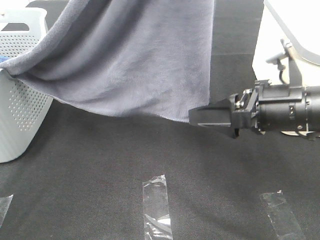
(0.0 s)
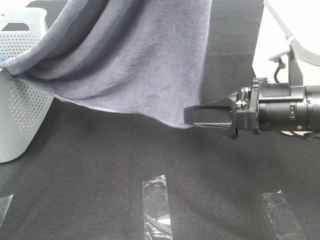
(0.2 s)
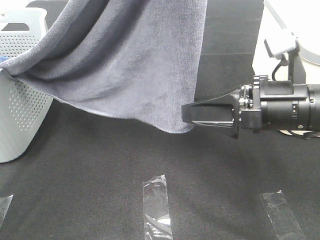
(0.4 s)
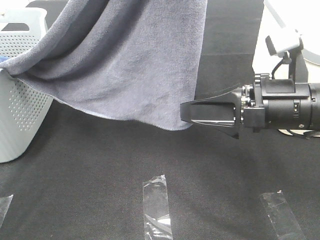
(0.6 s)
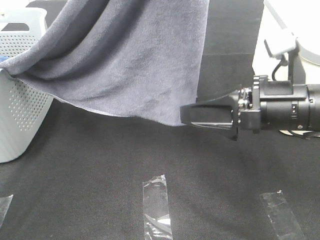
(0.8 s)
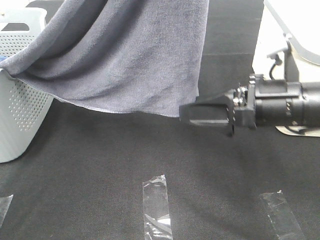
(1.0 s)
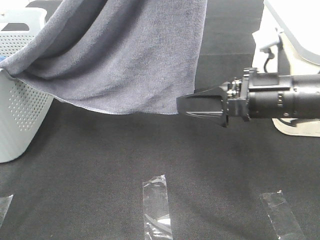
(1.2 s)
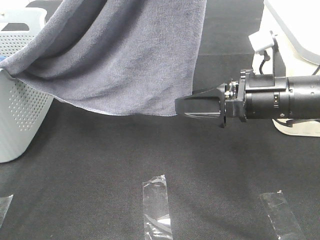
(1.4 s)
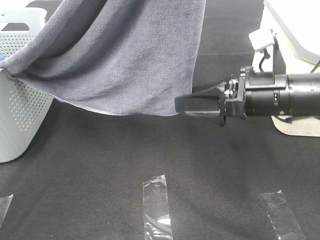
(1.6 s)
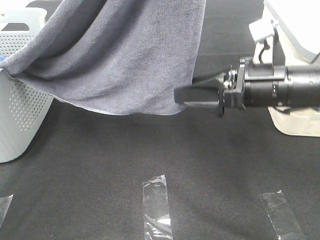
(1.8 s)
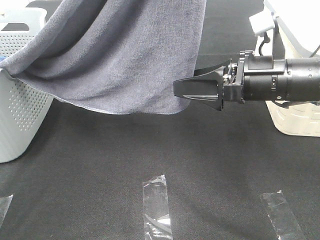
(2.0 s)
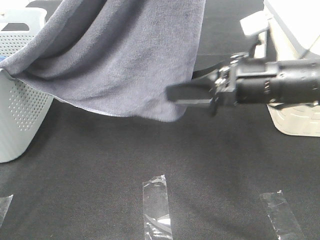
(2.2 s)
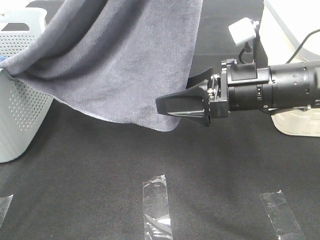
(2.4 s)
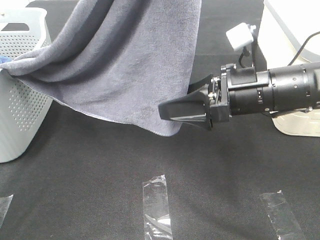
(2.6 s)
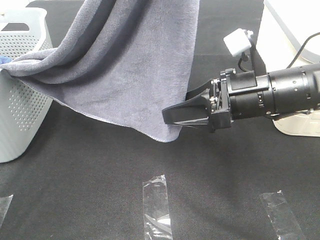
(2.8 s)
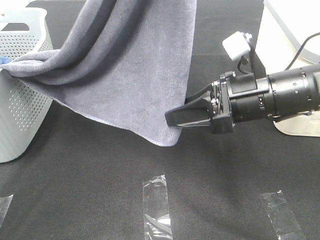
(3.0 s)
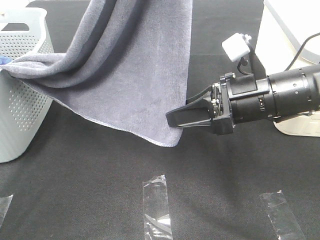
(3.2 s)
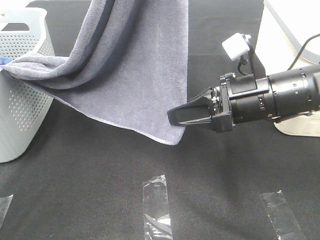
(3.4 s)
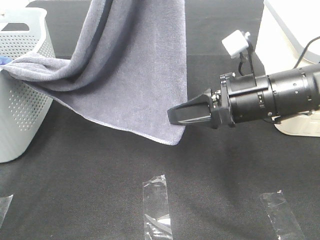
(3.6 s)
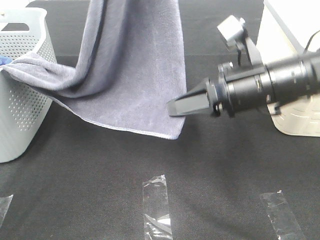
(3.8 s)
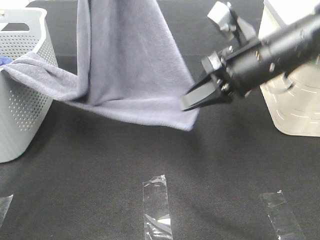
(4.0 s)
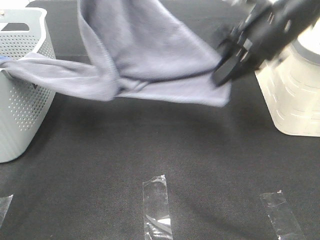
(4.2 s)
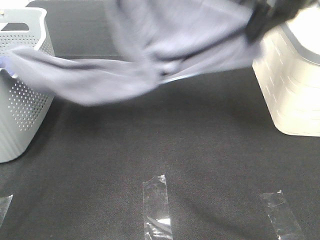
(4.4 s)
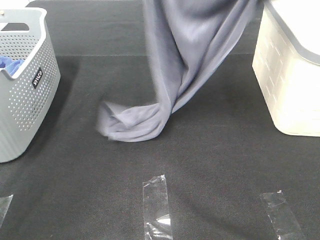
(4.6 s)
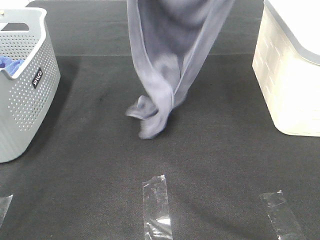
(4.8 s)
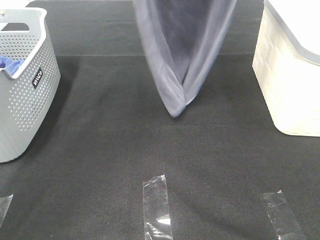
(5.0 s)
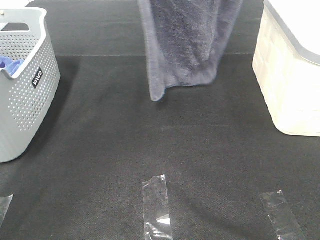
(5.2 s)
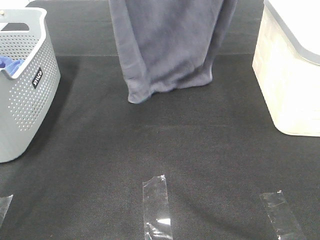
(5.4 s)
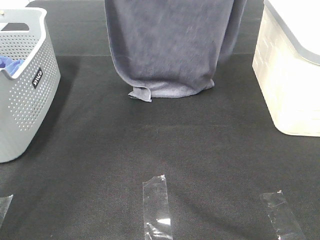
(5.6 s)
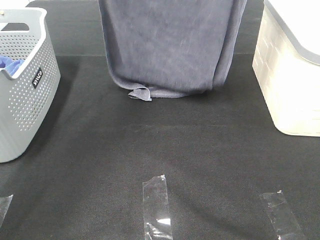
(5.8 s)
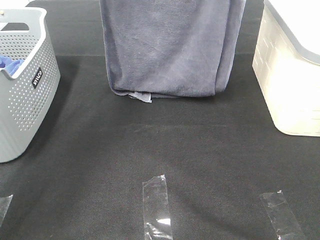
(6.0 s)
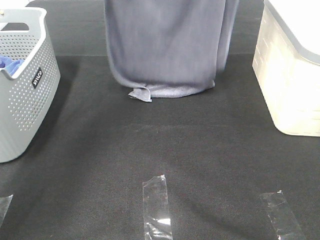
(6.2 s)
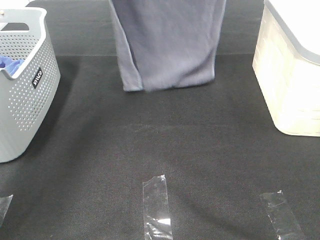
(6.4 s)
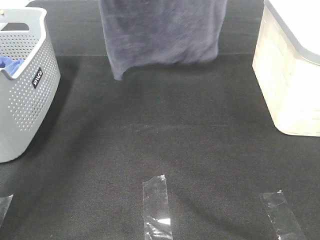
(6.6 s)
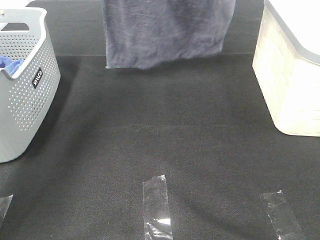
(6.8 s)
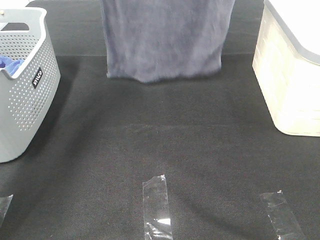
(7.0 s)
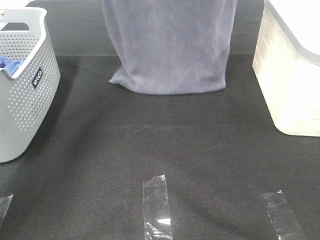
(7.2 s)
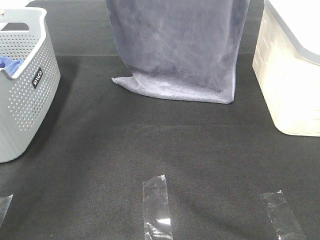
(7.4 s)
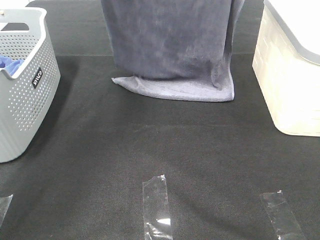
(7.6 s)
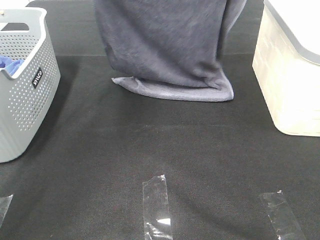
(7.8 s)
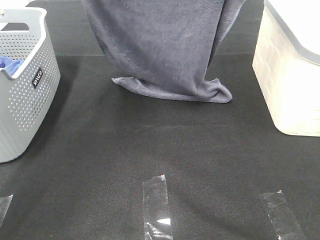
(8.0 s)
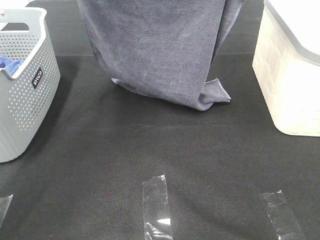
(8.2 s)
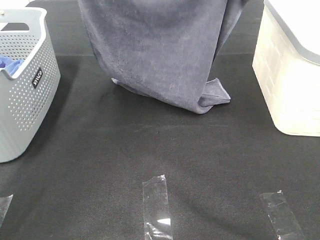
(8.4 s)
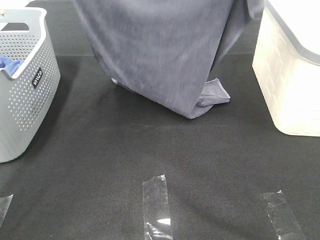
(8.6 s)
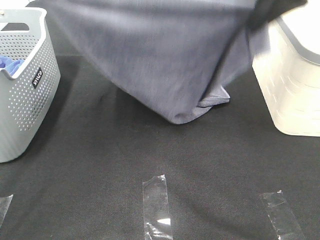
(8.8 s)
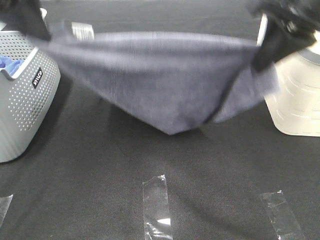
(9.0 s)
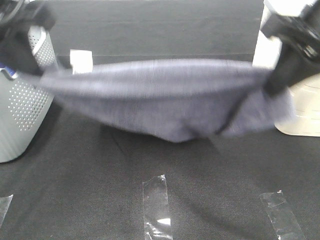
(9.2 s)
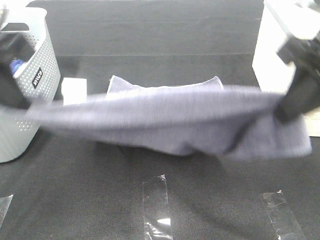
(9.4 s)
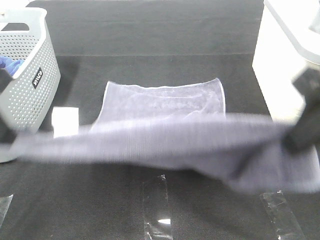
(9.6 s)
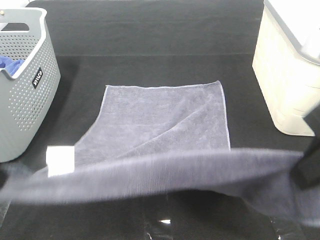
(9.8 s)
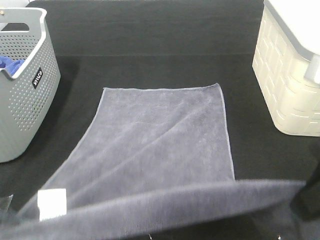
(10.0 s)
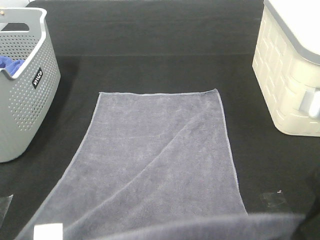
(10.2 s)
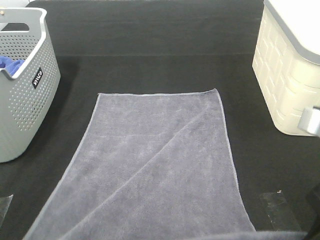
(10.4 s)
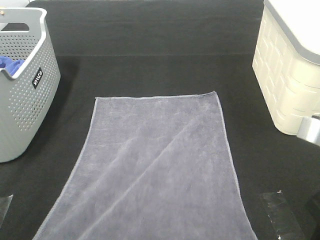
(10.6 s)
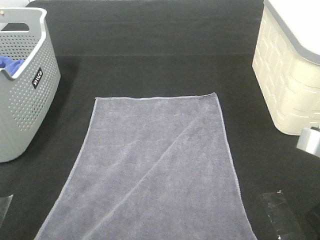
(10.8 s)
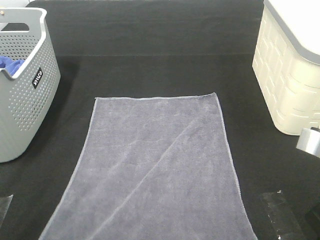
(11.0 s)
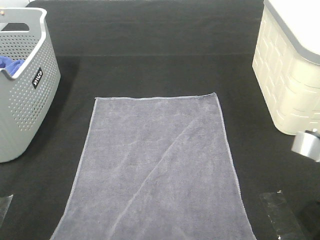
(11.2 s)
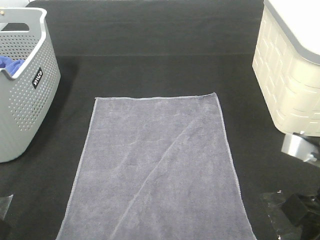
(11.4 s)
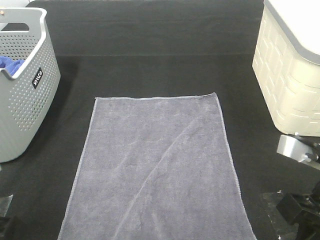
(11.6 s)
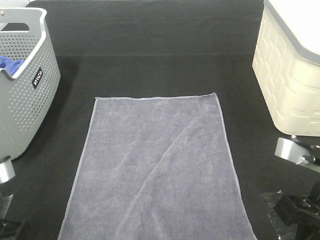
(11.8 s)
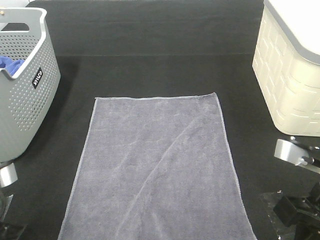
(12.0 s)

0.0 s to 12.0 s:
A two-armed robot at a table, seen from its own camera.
Task of the whole recording: Remove the towel and place it.
Step, 1.6 to 6.6 s: Left hand: spread the grey towel flat on the table.
Step, 1.6 to 6.6 s: Right hand: spread the grey towel flat on the table.
0.0 to 1.6 s: The grippers stay close to where they were, moving slightly.
1.6 to 3.0 s: The right gripper closes.
3.0 to 4.4 s: The left gripper heads forward and downward, covering roughly 10 cm. The right gripper heads upward and forward, covering approximately 20 cm, and closes.
4.4 to 6.0 s: The left gripper goes approximately 5 cm forward, and moves some 10 cm upward and comes back; the right gripper goes roughly 15 cm upward and forward.
6.0 to 7.6 s: The right gripper travels upward and back again, roughly 5 cm each way.
7.6 to 9.0 s: The left gripper goes roughly 15 cm backward. The right gripper travels backward and downward by approximately 15 cm.
9.0 to 10.4 s: Both grippers travel together backward and downward, about 20 cm.
10.4 to 12.0 s: The right gripper shifts by some 5 cm; the left gripper shifts some 5 cm downward.

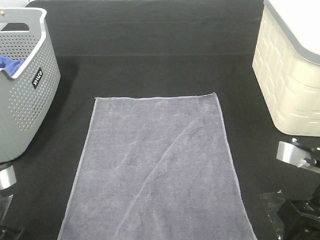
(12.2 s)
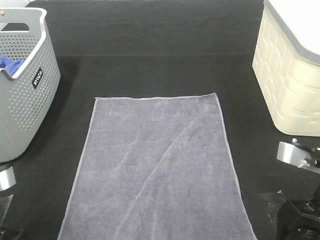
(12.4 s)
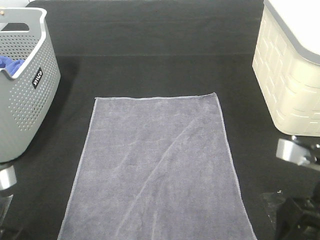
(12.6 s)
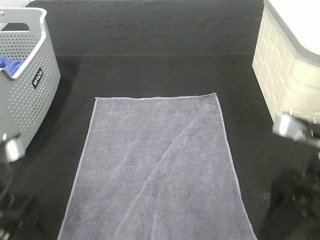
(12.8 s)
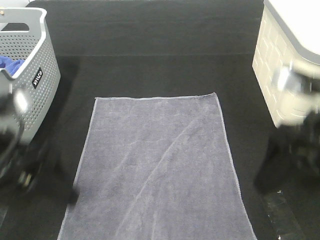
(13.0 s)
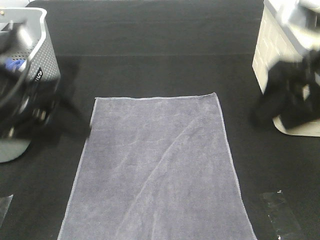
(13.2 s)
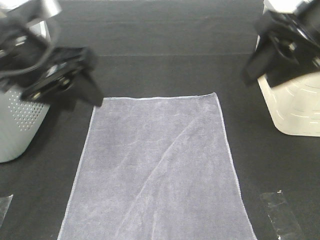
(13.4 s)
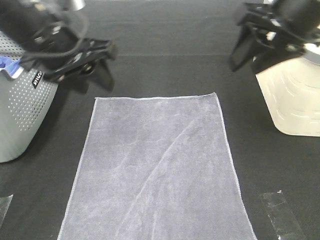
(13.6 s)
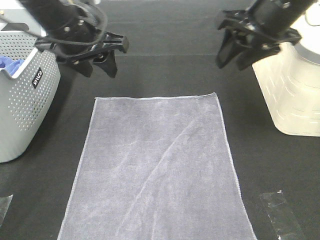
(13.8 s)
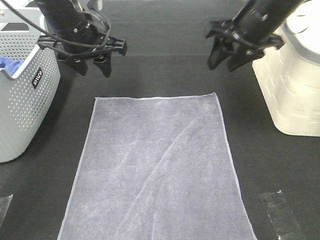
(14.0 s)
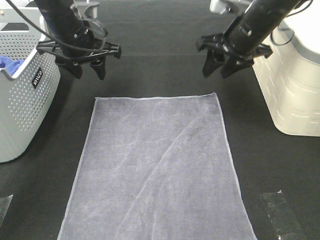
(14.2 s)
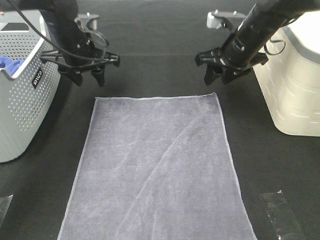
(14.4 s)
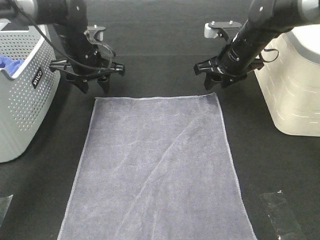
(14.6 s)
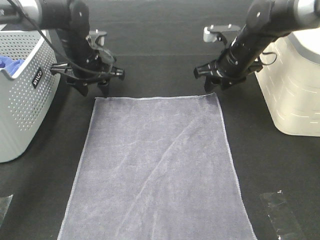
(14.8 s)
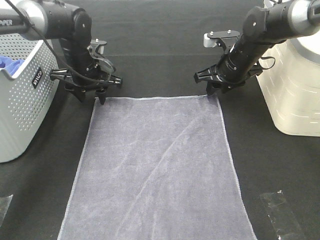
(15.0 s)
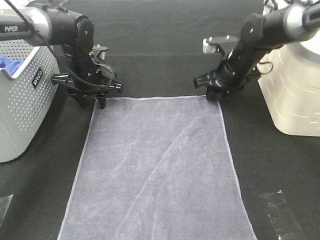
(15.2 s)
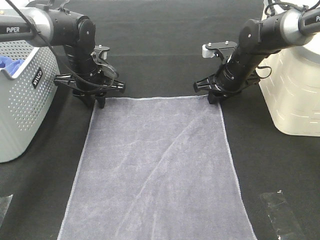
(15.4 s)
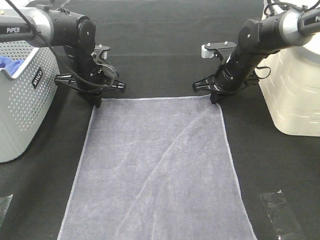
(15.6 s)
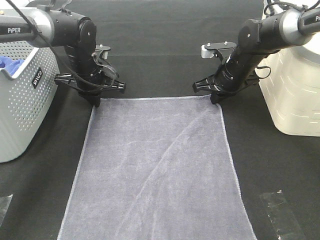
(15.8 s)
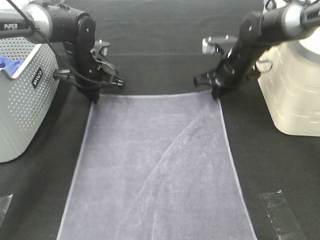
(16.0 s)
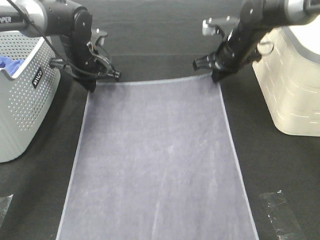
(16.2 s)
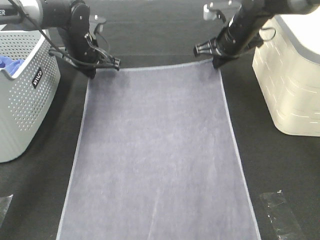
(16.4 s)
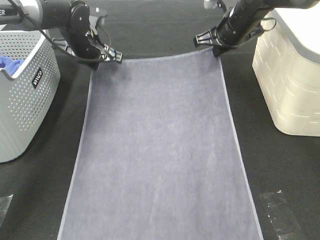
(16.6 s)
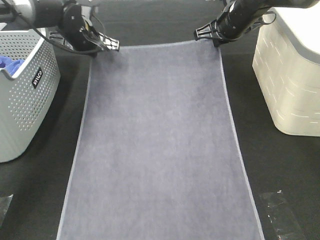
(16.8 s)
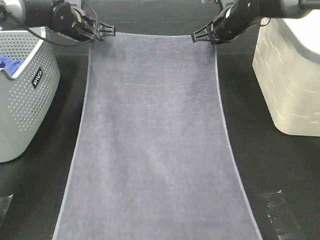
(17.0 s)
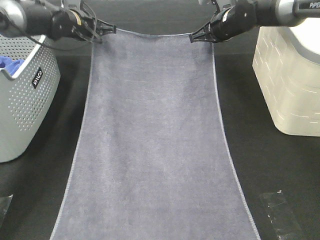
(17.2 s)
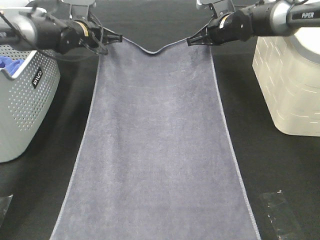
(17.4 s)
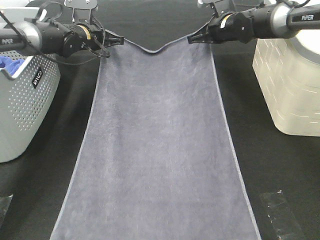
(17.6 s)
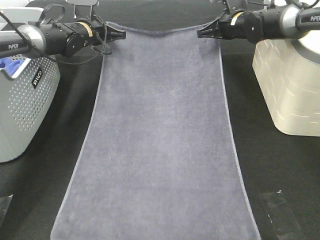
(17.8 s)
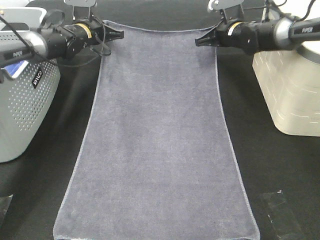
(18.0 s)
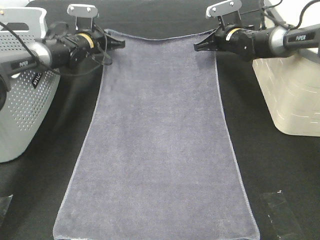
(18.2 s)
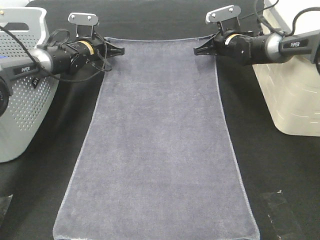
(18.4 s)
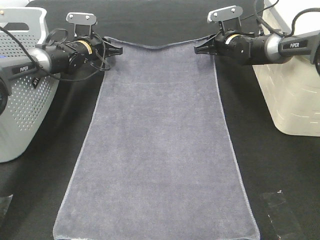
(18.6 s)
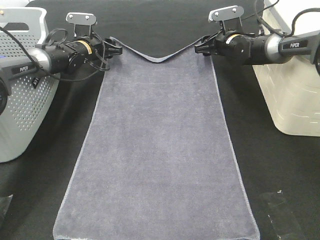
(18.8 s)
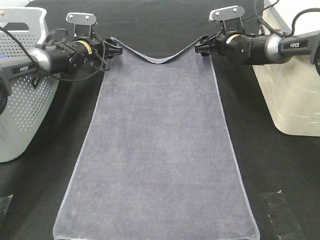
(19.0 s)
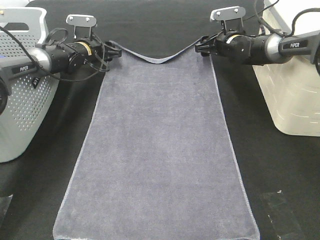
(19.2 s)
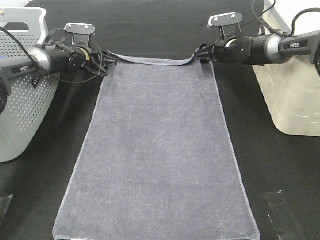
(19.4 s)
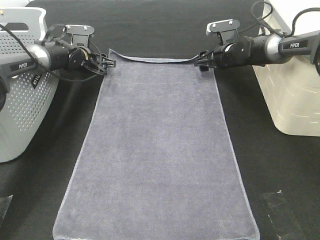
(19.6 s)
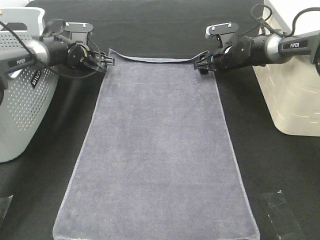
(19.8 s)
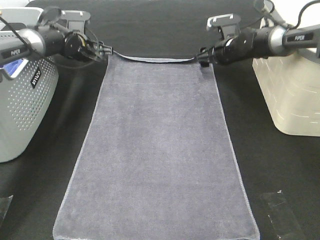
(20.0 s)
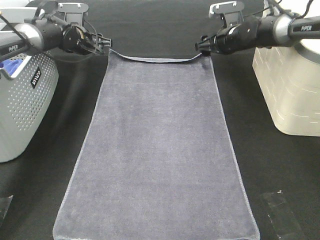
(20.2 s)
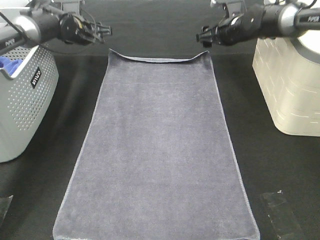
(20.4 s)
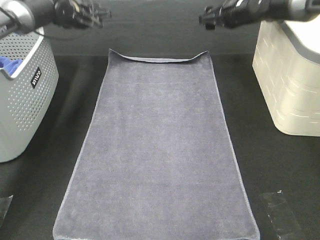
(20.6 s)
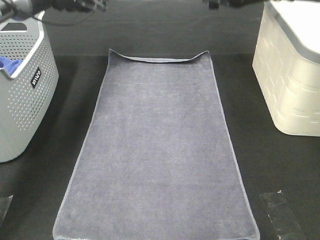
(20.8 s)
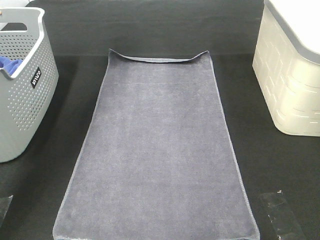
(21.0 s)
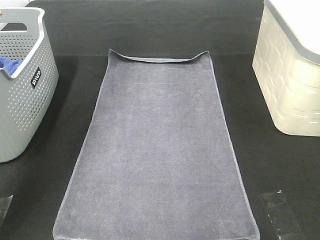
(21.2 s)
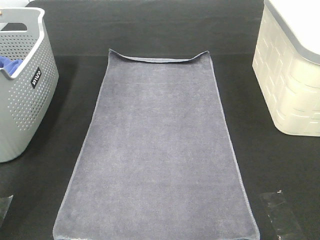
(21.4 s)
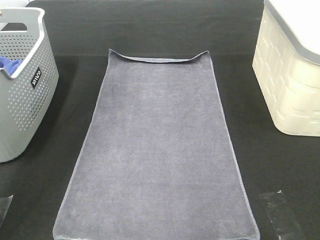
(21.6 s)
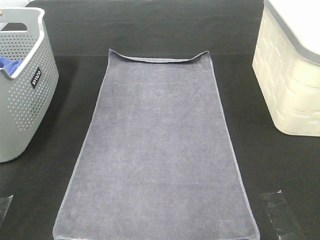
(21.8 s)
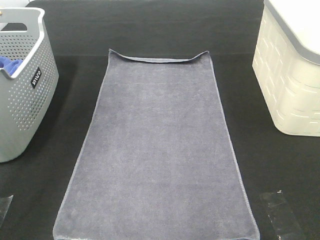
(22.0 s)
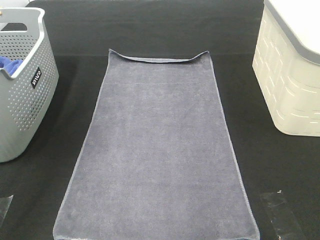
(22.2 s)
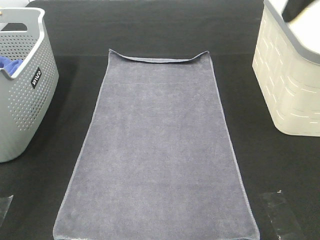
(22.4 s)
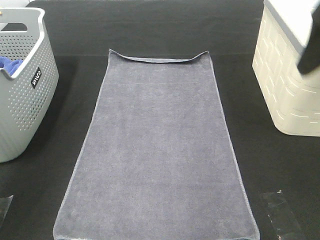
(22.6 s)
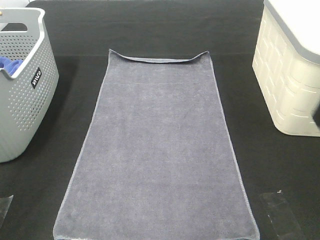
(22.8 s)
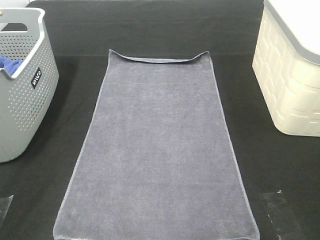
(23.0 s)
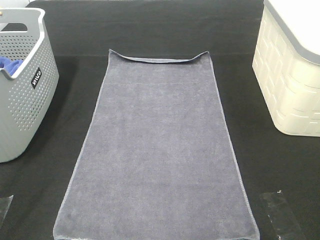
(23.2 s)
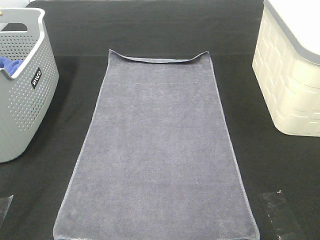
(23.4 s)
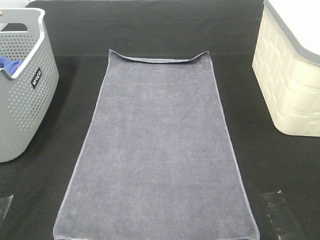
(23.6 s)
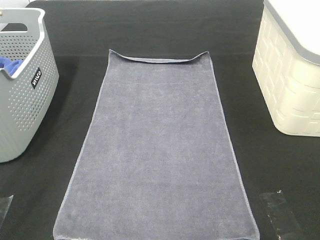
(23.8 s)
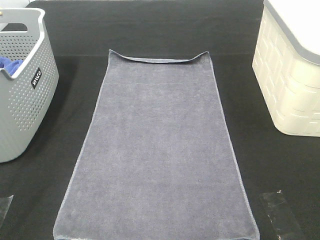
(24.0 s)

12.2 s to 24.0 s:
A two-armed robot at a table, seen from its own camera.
Task of the whole recording: Remove the towel and place it.
12.2 to 13.6 s: Both grippers travel together forward and upward, some 25 cm.
13.6 to 15.2 s: The grippers both shift downward and forward by roughly 25 cm.
15.2 to 16.6 s: The right gripper heads upward, covering roughly 10 cm, and closes up. Meanwhile the left gripper is displaced upward by approximately 5 cm, and closes.
16.6 to 18.2 s: The left gripper moves forward and downward, about 10 cm; the right gripper is displaced downward and forward by approximately 10 cm.
18.2 to 19.6 s: The left gripper opens up. The right gripper opens its fingers.
19.6 to 21.0 s: The two grippers go about 25 cm upward.
21.0 to 22.6 s: The right gripper moves backward, approximately 30 cm. Meanwhile the left gripper shifts roughly 40 cm backward.
22.6 to 24.0 s: The right gripper heads backward, covering some 20 cm, while the left gripper moves backward and downward, approximately 15 cm.
